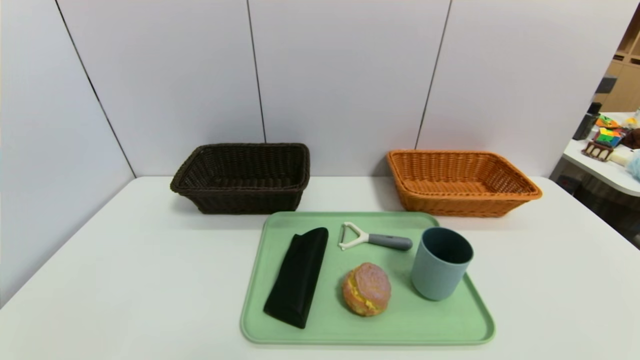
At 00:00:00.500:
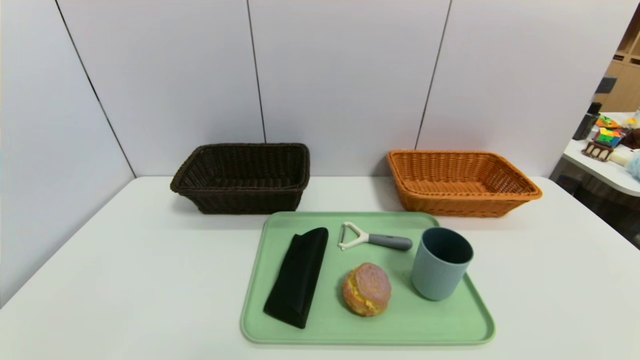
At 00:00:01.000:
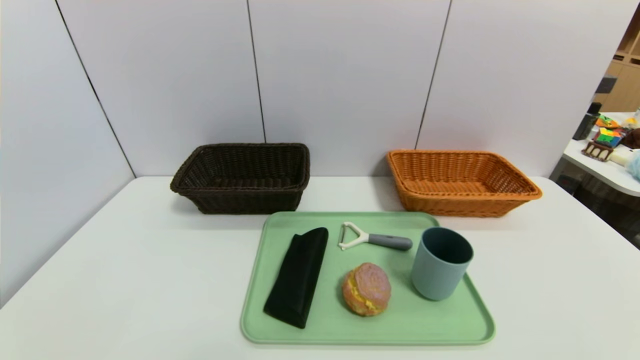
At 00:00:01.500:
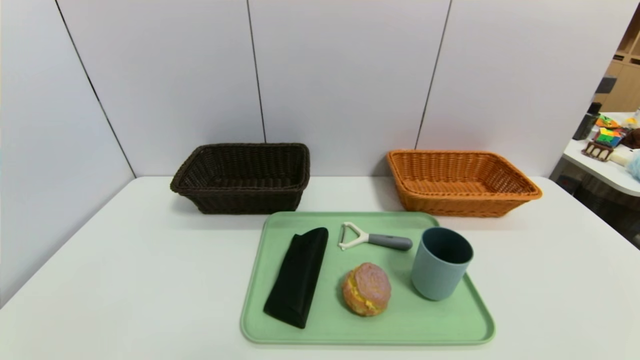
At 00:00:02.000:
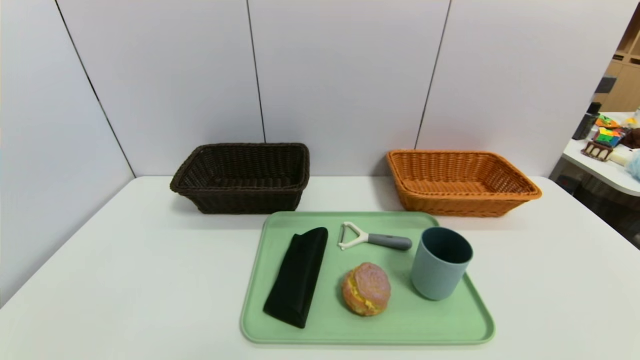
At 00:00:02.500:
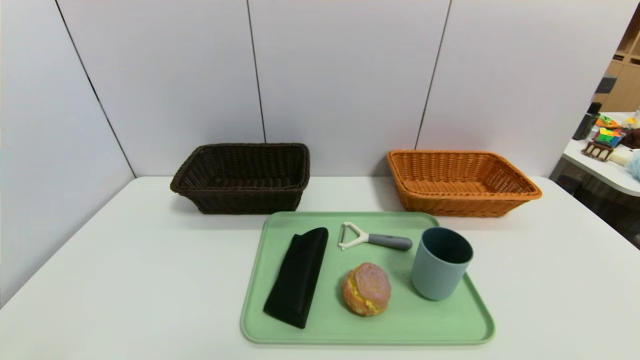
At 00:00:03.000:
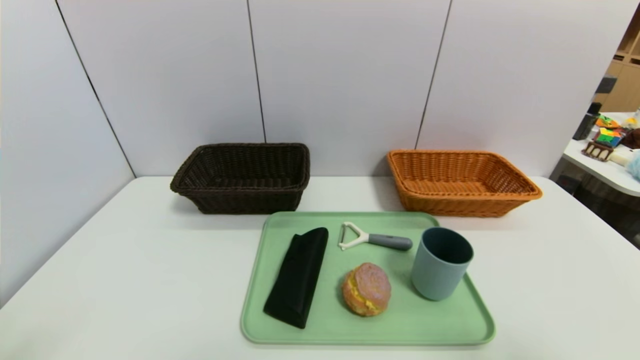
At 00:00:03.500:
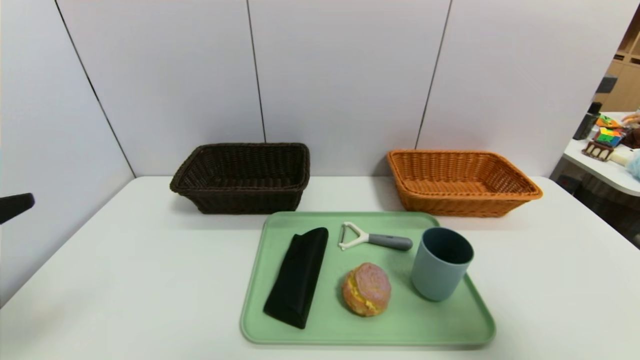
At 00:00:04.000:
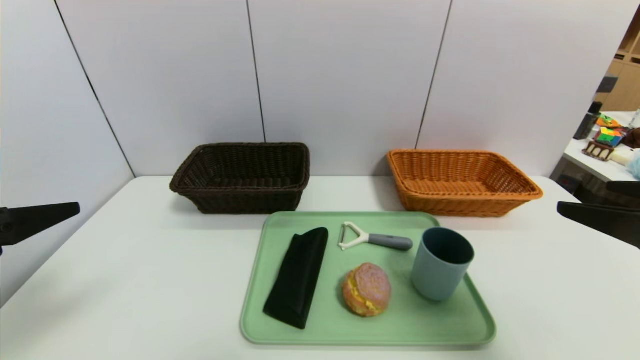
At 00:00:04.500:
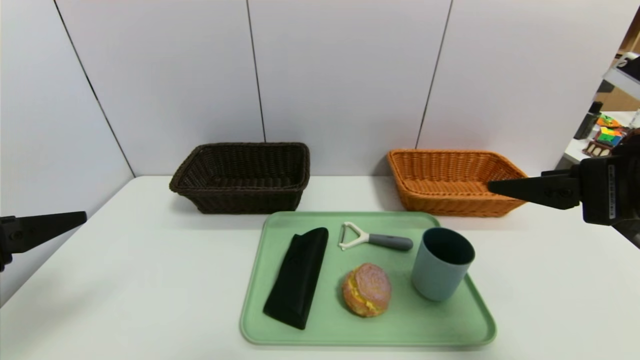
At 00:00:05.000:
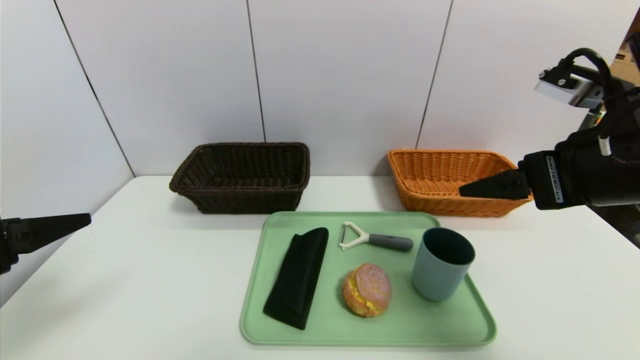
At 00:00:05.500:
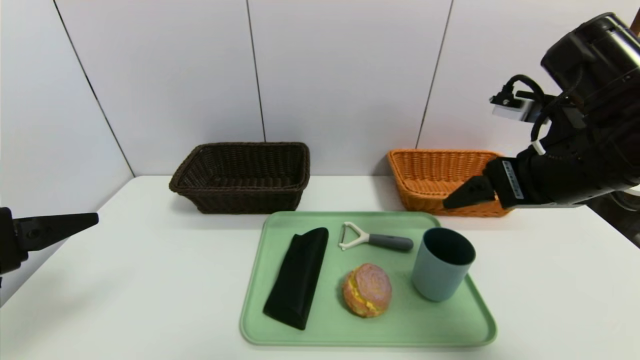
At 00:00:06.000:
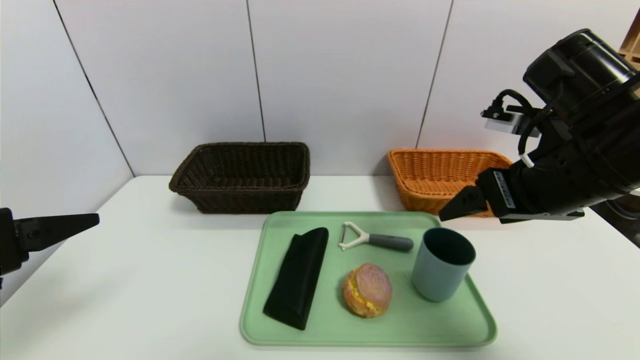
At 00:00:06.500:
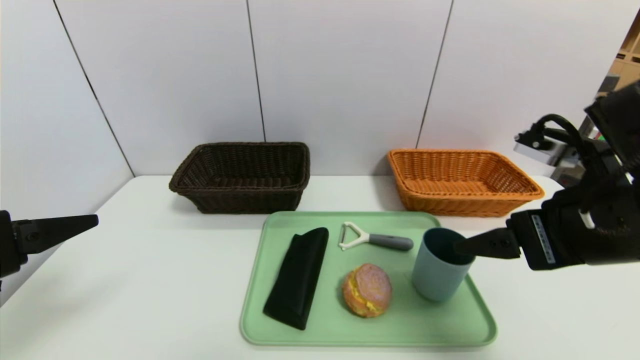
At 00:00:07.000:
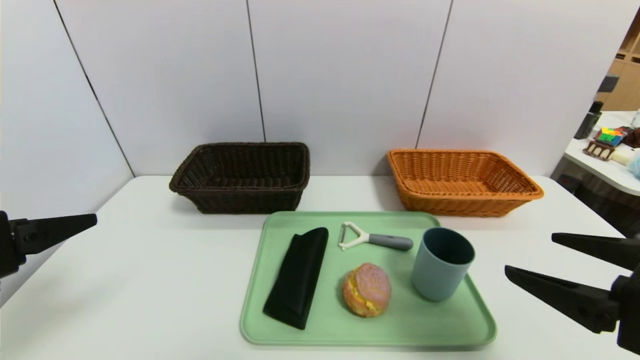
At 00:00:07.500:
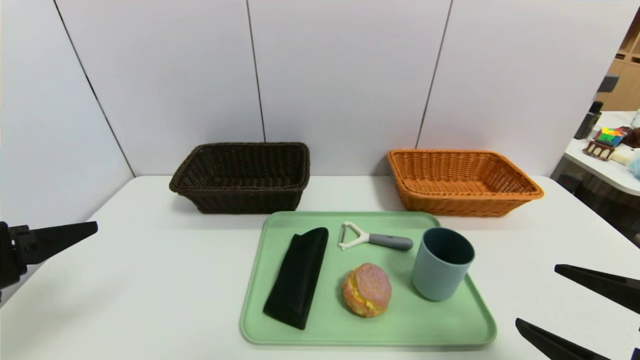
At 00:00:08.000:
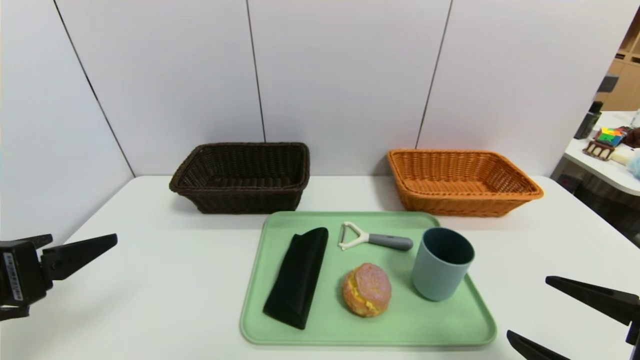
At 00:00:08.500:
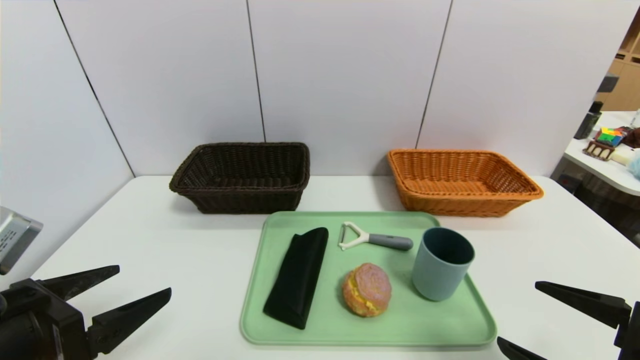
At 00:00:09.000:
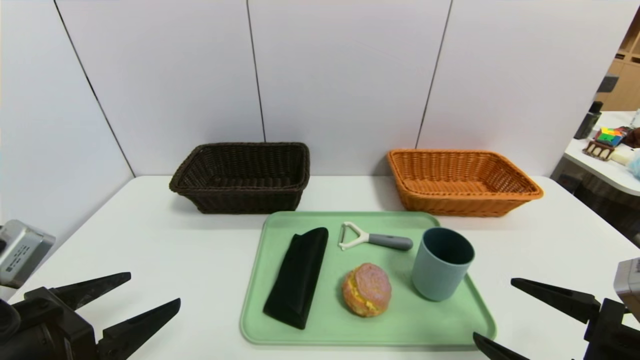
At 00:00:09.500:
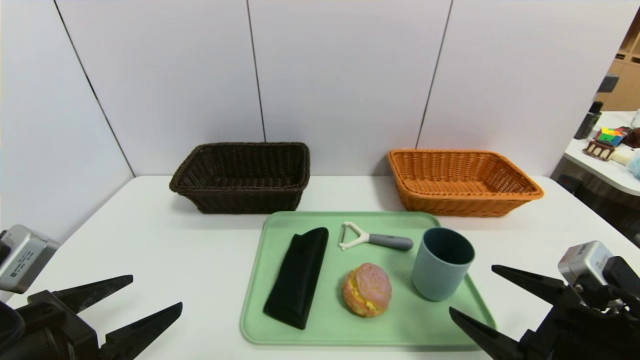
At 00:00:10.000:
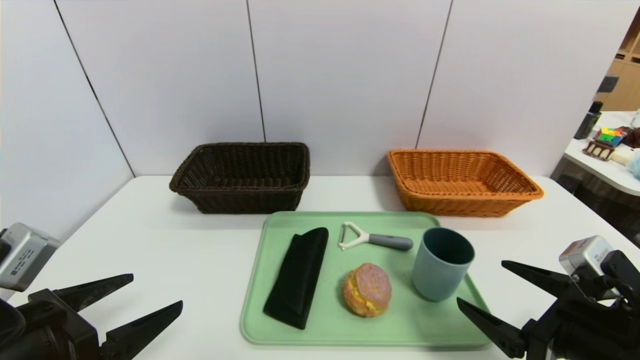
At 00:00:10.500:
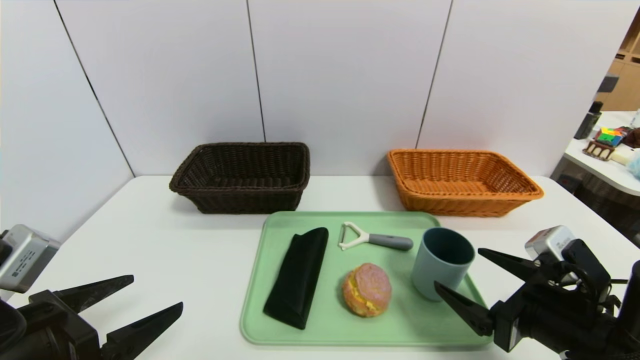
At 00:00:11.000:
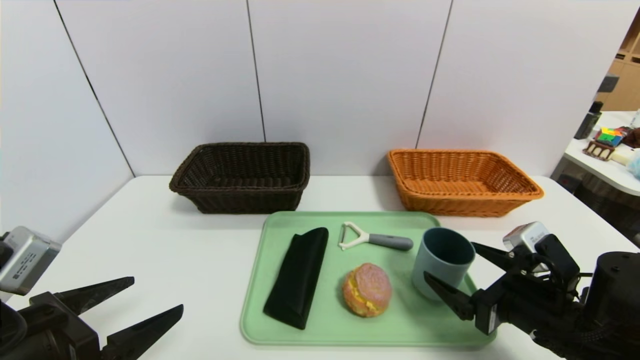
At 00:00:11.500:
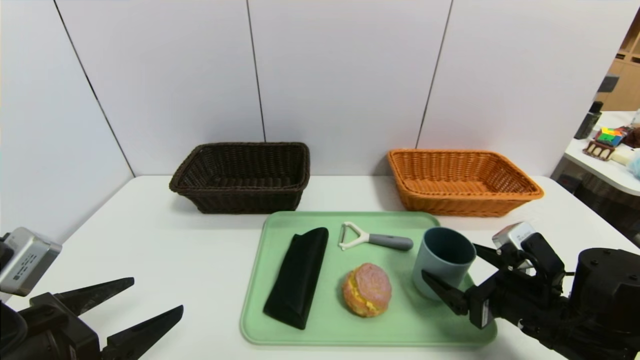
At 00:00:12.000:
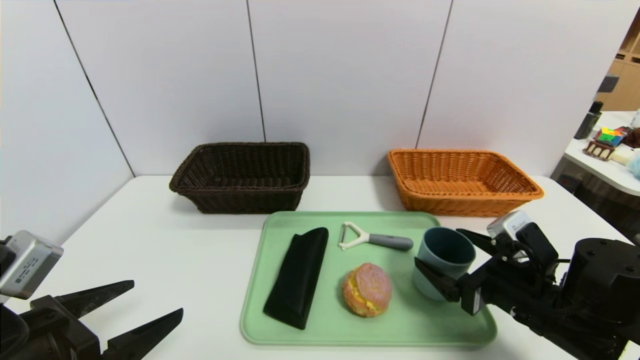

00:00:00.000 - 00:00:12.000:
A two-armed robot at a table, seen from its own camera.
Task of the whole recording: place the food in the right basket with the right gripper, and place the non food items in the left basket with the left gripper.
00:00:02.000 - 00:00:04.000: Both grippers travel together upward and forward, some 25 cm.
00:00:04.000 - 00:00:06.000: The right gripper travels forward and to the left by approximately 15 cm.
00:00:06.000 - 00:00:08.000: The right gripper shifts some 20 cm backward and downward.
00:00:08.000 - 00:00:10.000: The right gripper heads forward, covering approximately 5 cm. The left gripper moves downward, about 5 cm.
00:00:10.000 - 00:00:12.000: The right gripper travels forward by some 5 cm.

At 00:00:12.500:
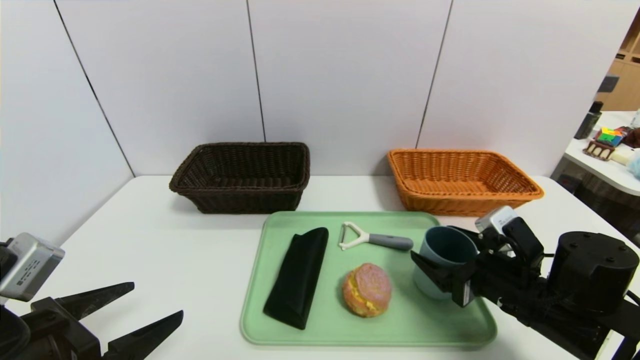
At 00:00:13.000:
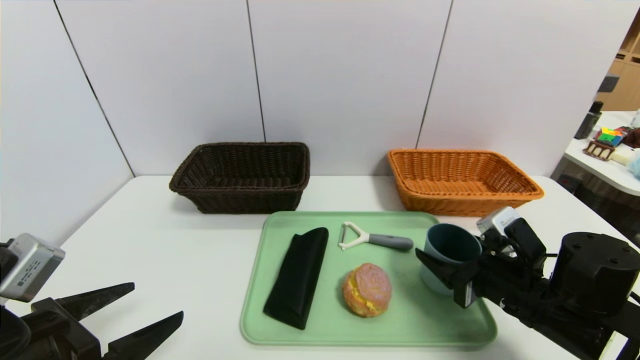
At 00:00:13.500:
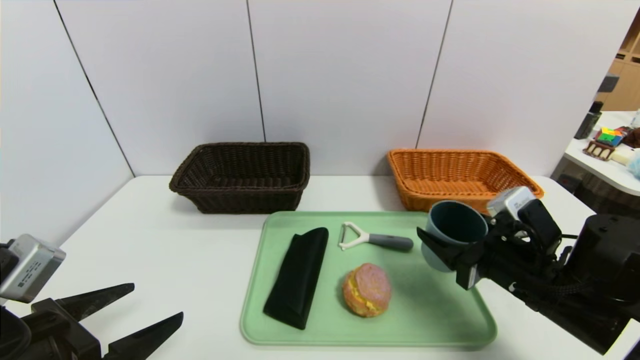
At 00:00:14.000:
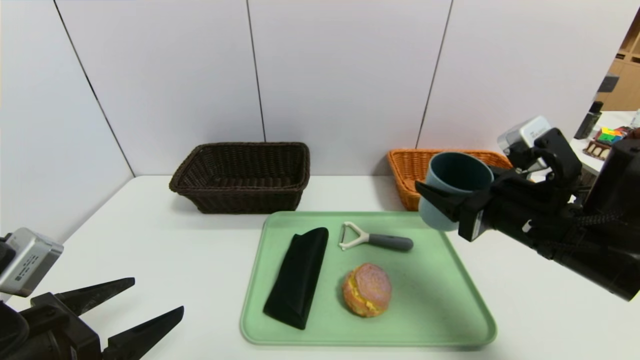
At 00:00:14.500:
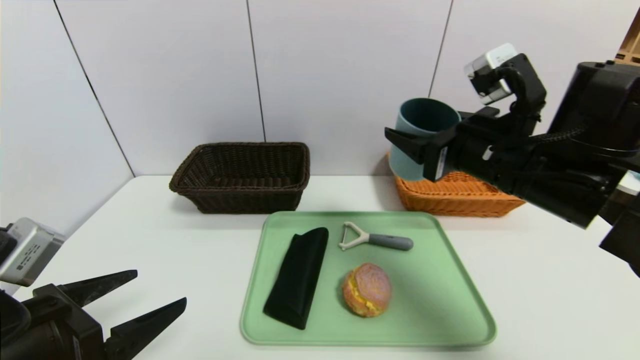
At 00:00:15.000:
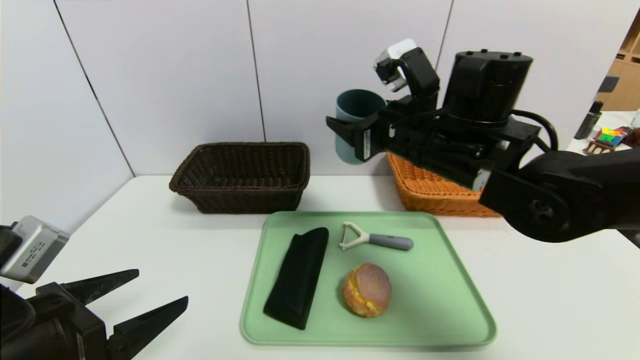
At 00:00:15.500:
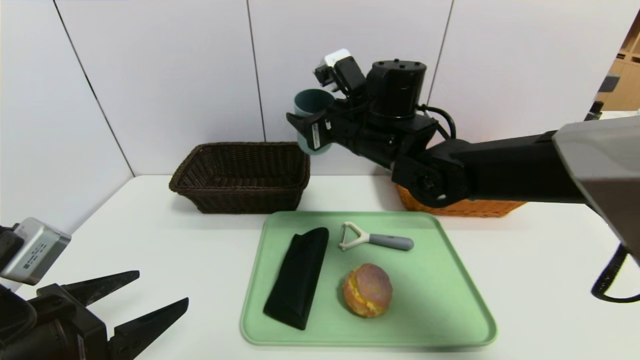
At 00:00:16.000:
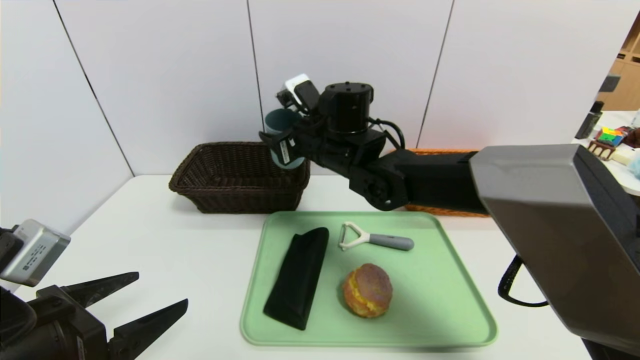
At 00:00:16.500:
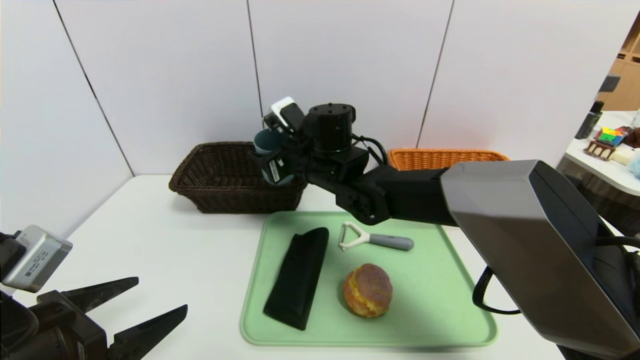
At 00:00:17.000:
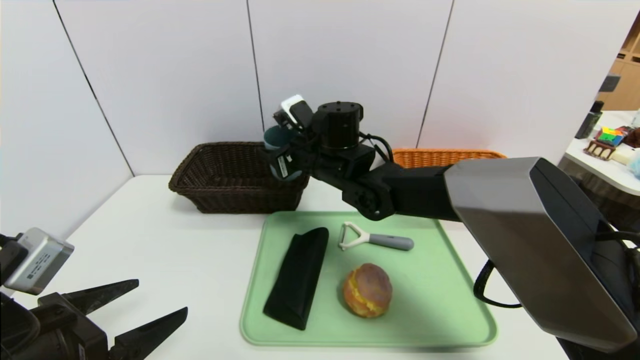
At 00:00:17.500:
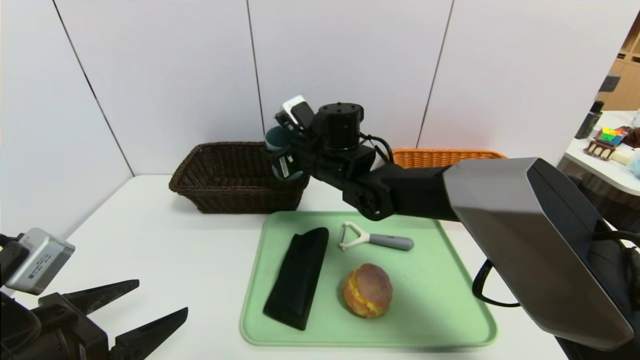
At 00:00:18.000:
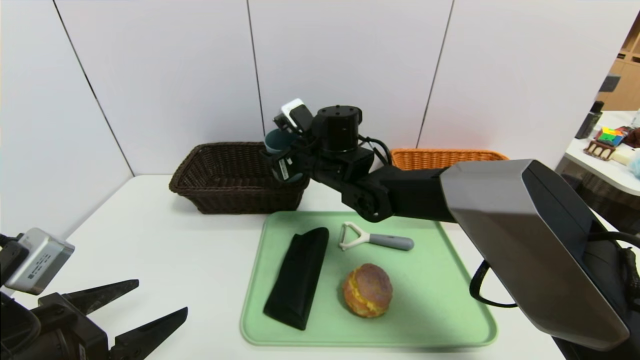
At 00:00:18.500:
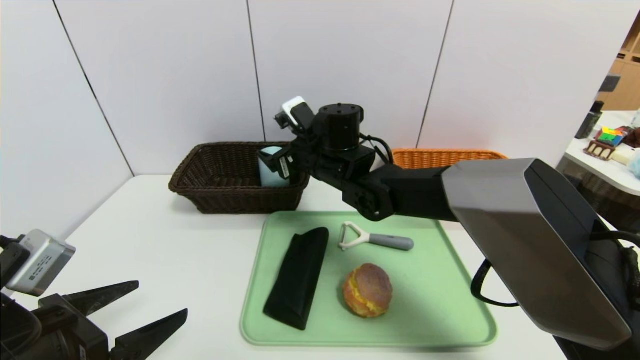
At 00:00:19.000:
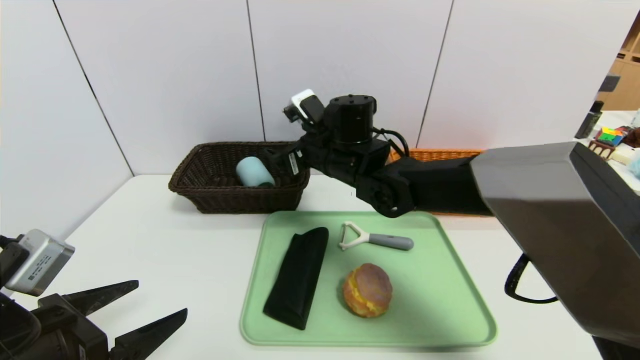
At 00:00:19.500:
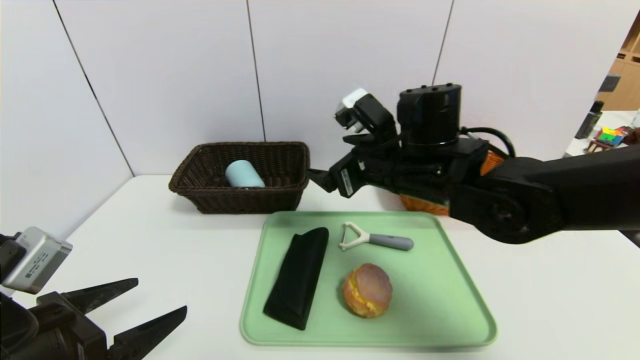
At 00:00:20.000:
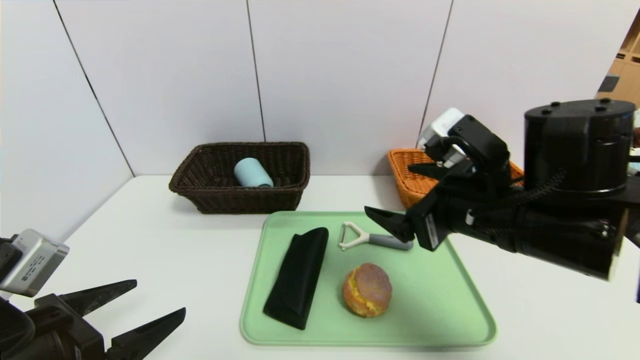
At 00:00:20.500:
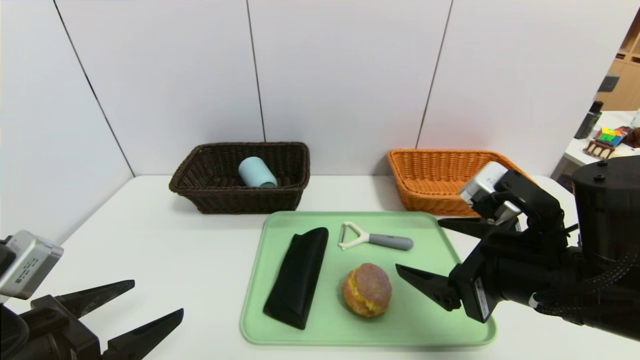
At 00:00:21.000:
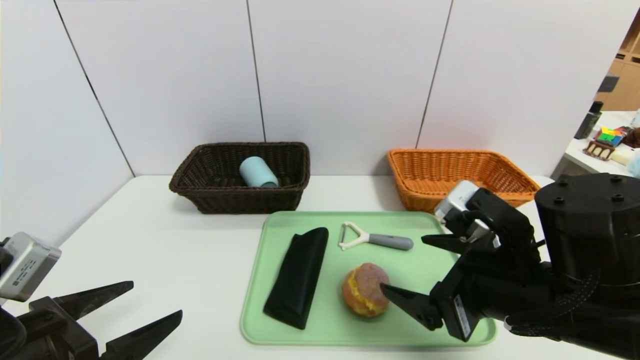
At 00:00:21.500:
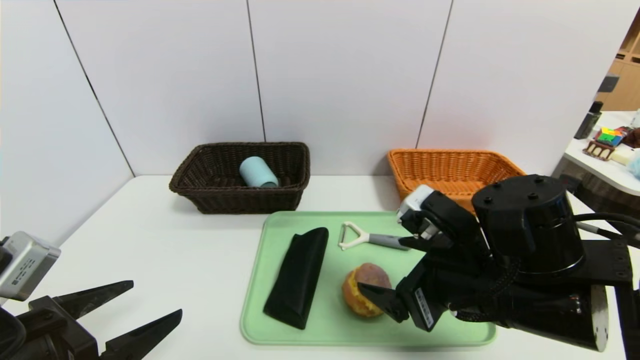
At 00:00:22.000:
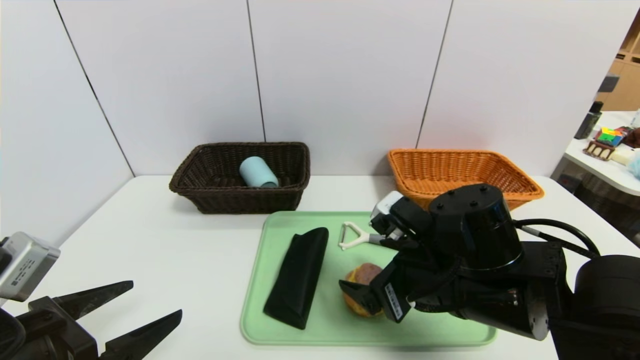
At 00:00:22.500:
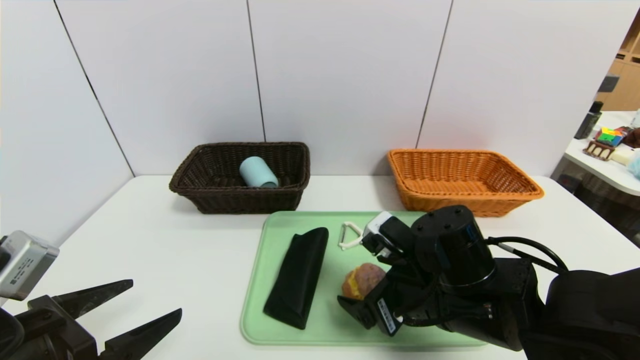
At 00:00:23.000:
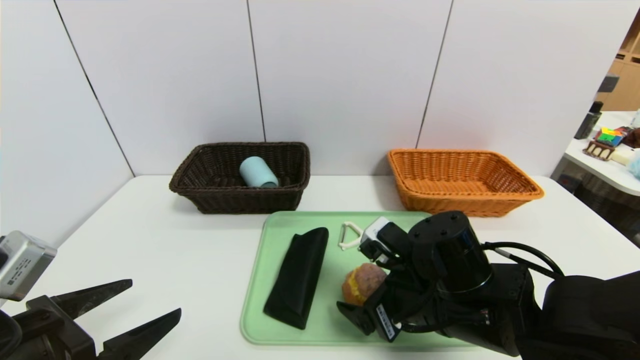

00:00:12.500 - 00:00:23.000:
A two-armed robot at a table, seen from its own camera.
Task of the whole recording: place the food in the right basket with the right gripper, and place the non food items in the left basket with the left gripper.
00:00:12.500 - 00:00:14.500: The right gripper is displaced upward by approximately 15 cm.
00:00:14.500 - 00:00:16.500: The right gripper shifts roughly 25 cm to the left and forward.
00:00:16.500 - 00:00:19.000: There are only small adjustments of the grippers.
00:00:19.000 - 00:00:21.000: The right gripper goes some 25 cm backward and to the right.
00:00:21.000 - 00:00:23.000: The right gripper travels downward and to the left by some 10 cm.
